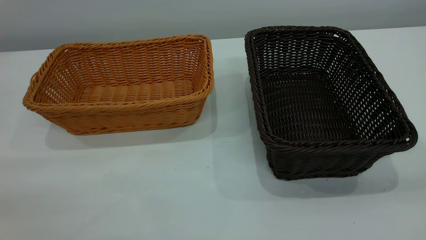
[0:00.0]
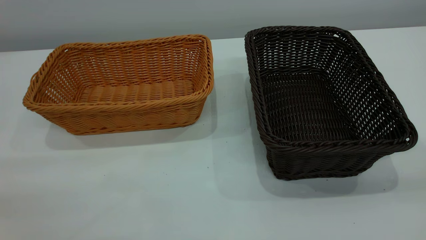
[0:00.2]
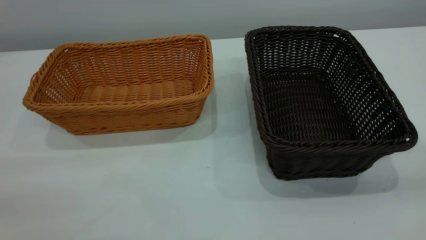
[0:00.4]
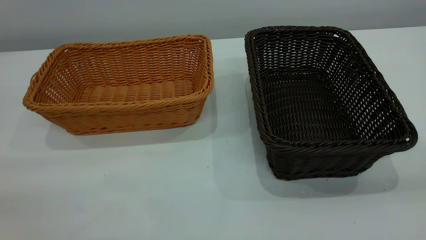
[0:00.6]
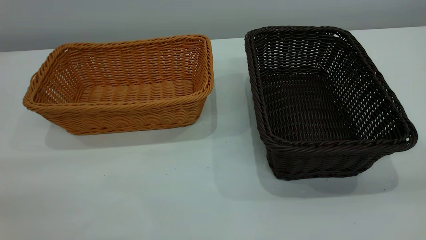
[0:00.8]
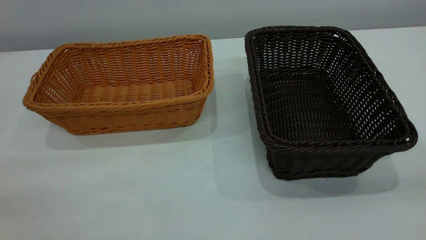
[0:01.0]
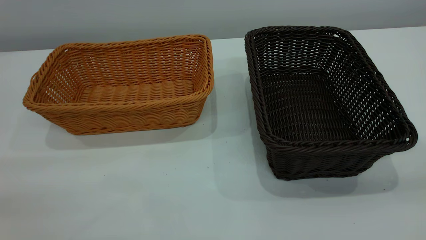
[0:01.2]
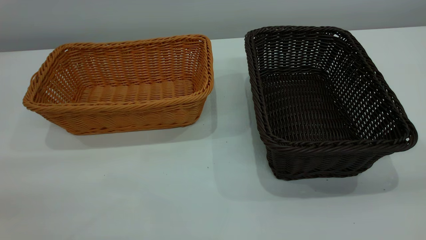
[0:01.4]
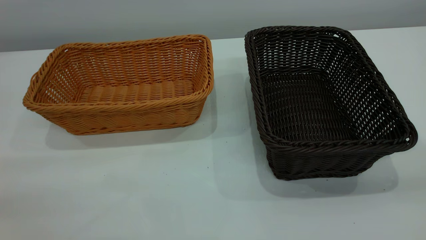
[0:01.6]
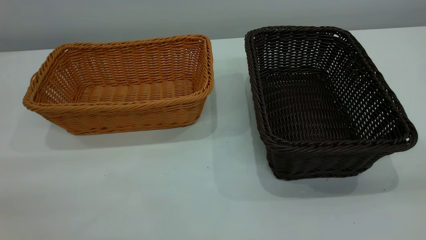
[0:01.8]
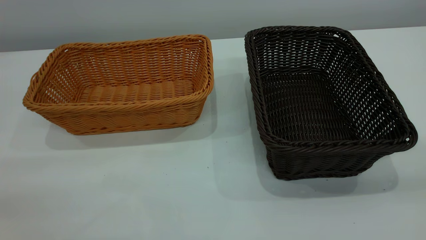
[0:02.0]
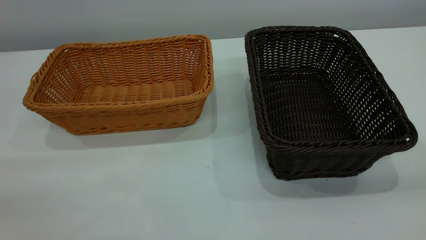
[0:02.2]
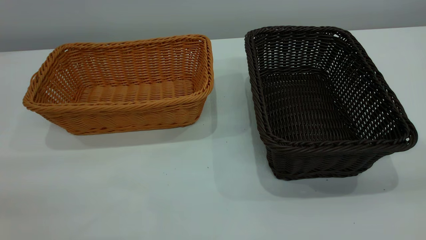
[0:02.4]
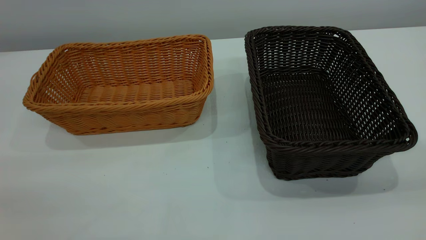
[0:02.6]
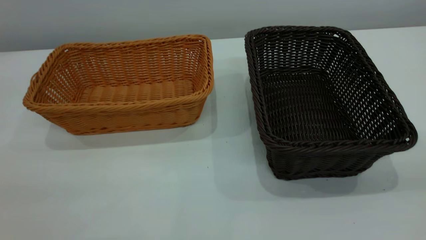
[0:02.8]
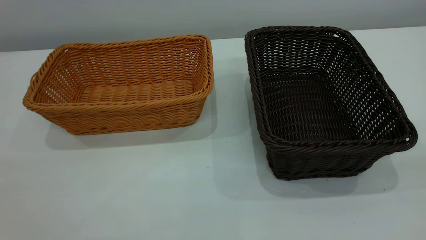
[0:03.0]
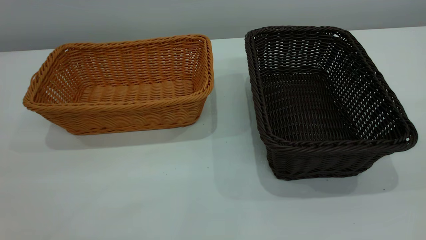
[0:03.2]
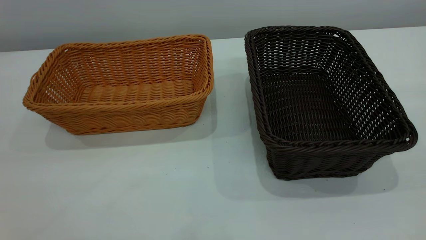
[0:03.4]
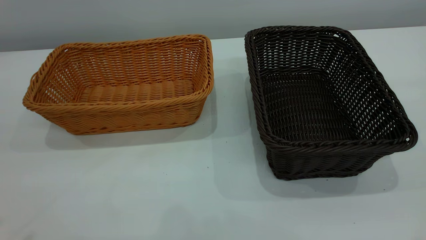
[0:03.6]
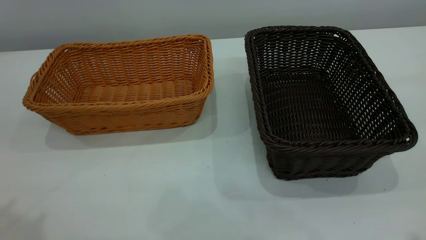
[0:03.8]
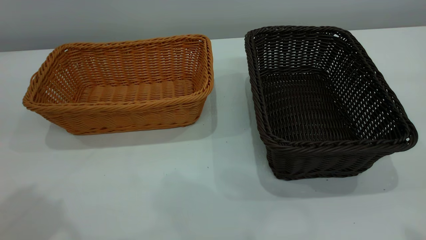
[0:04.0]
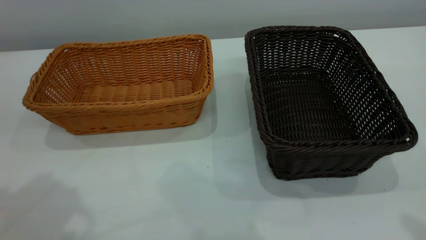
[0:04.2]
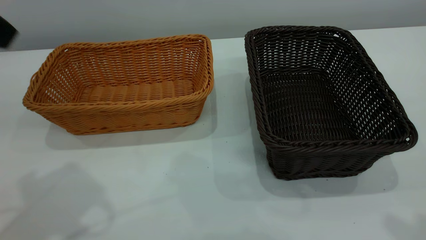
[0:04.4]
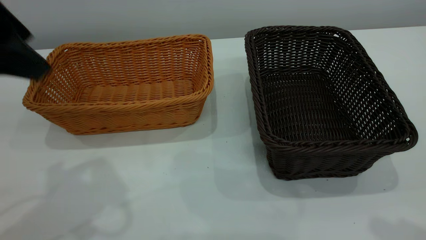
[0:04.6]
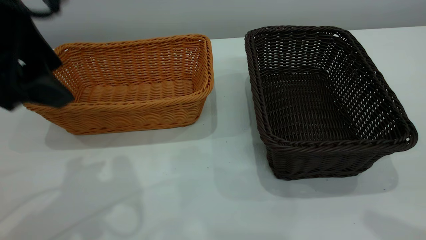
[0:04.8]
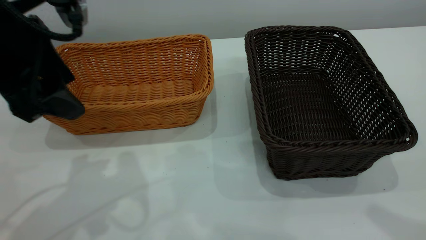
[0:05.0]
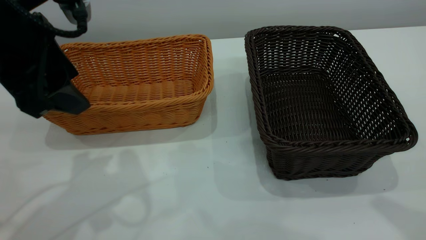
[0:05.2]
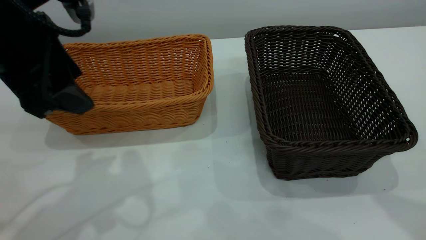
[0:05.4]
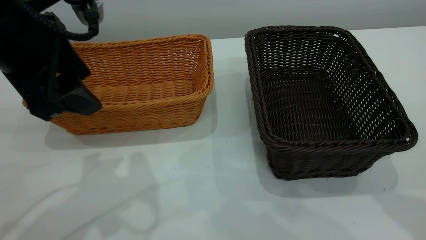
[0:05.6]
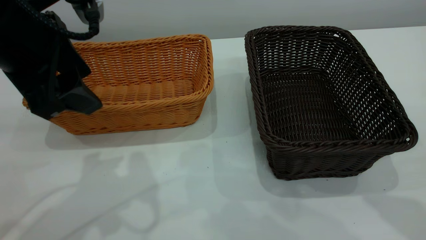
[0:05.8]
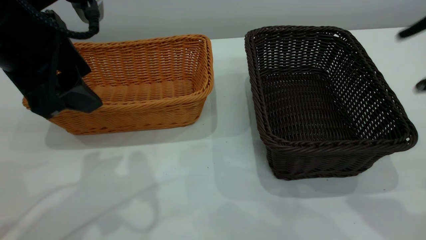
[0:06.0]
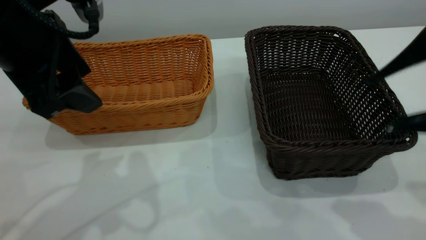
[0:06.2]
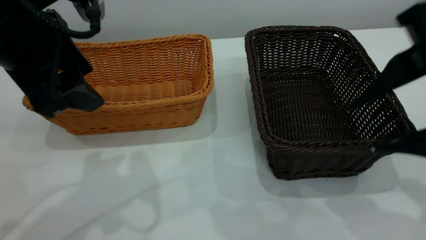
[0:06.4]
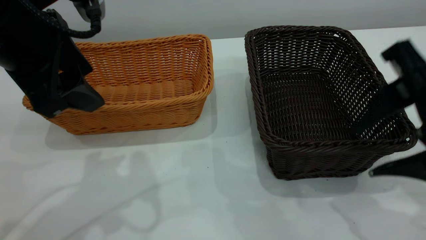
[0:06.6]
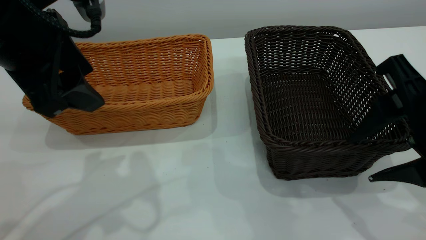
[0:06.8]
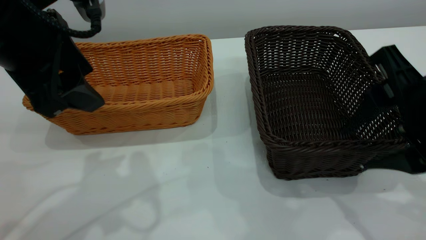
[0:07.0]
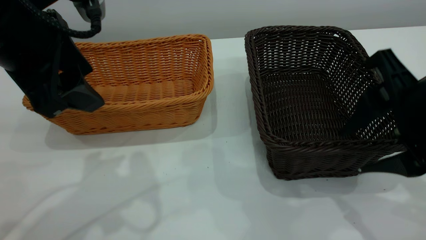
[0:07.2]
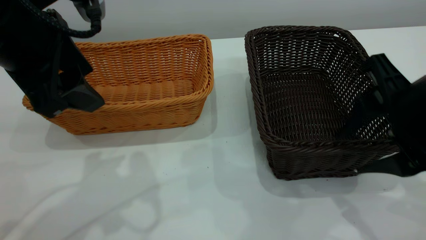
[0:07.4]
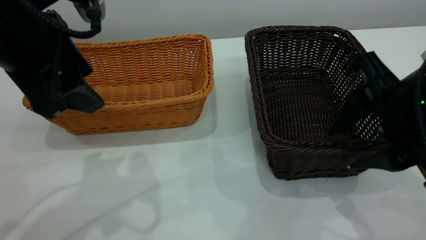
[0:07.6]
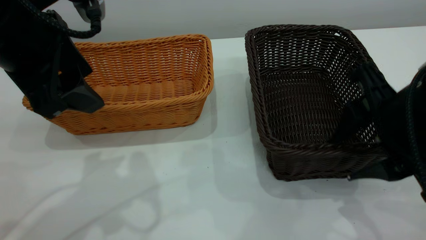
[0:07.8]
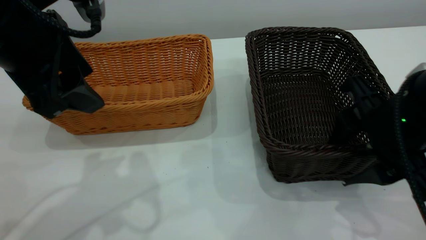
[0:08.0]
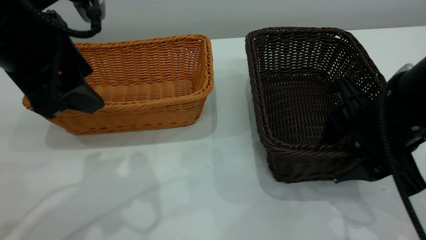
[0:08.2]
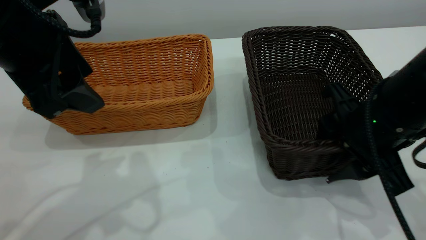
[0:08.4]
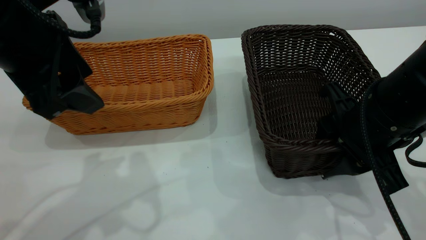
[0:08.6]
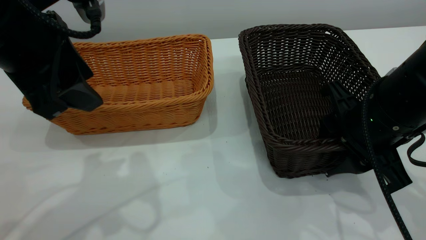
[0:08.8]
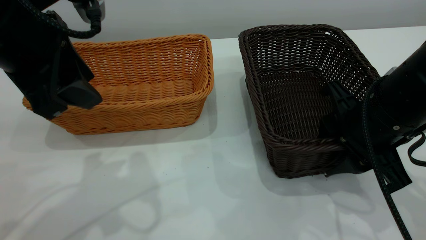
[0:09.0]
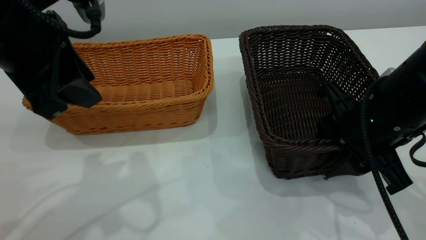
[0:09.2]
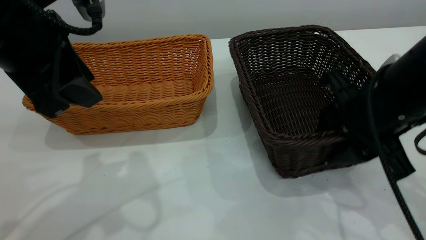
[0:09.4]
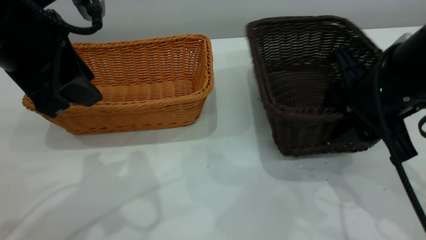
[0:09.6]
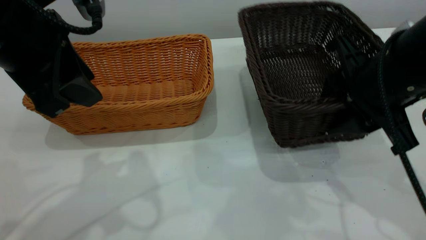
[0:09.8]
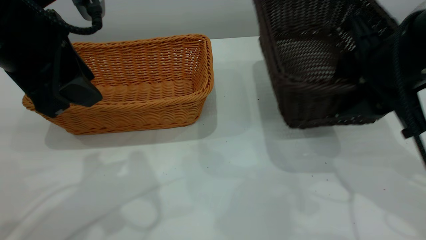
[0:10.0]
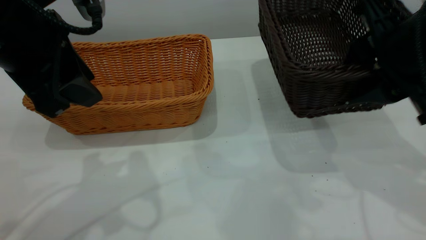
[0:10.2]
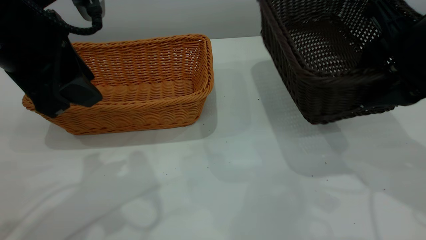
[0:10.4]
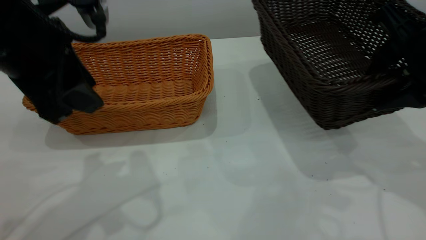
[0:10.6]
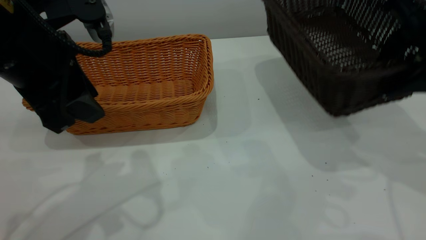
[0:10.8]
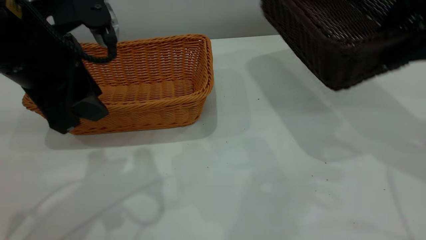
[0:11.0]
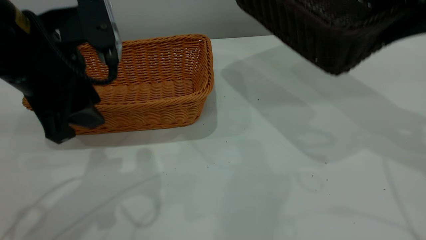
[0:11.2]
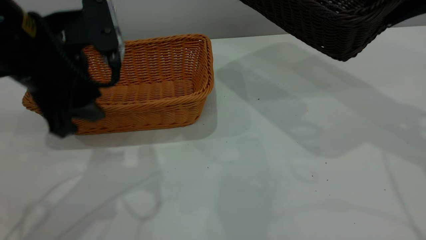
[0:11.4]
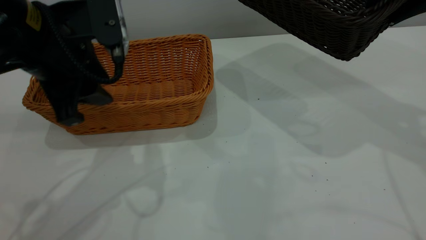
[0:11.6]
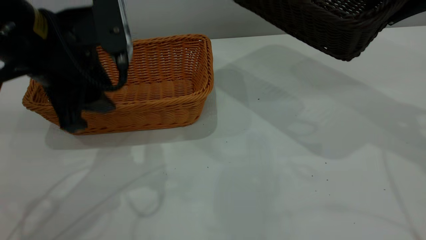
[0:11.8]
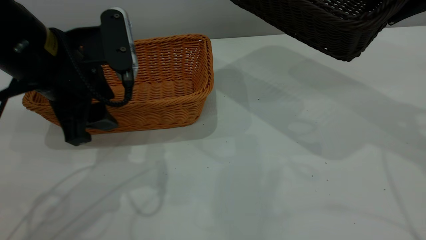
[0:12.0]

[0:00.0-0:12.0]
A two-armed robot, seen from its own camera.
Task of the whole recording: the left gripper grasp the brown basket and place it in the center of the table, the right gripper grasp the black basket and place it inside the brown one.
Step, 0.0 to 10.6 s: Pick up the light basket with the right gripper.
0.0 to 1.6 s: The two grippers keep their place.
4.4 to 6.0 s: The left gripper travels downward and to the right by some 10 cm.
6.0 to 7.6 s: The right gripper is displaced downward and forward by roughly 10 cm.
7.6 to 9.0 s: The right gripper shifts by some 5 cm.
9.0 to 10.4 s: The right gripper travels upward by some 10 cm.
10.4 to 12.0 s: The right gripper heads upward and forward, covering roughly 10 cm, while the left gripper goes approximately 5 cm downward.

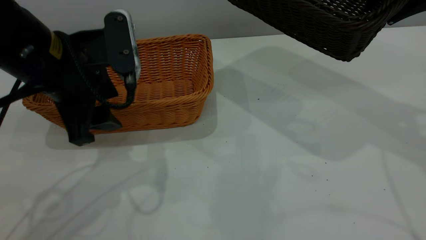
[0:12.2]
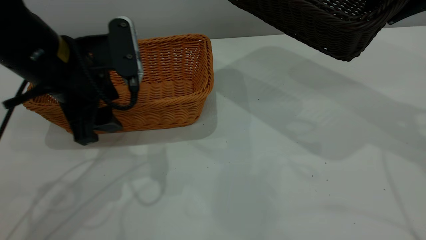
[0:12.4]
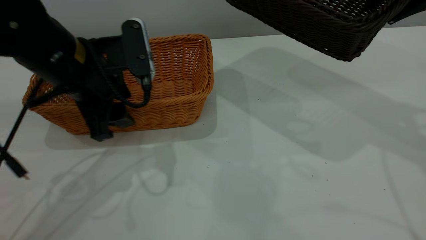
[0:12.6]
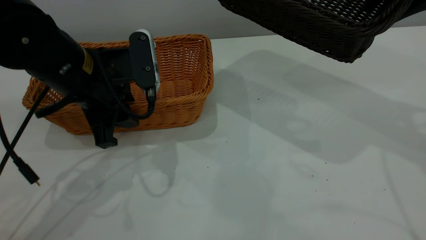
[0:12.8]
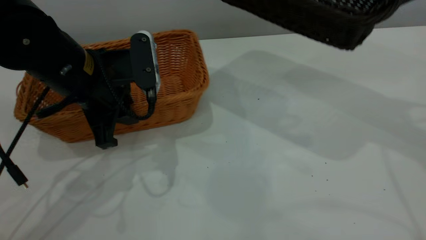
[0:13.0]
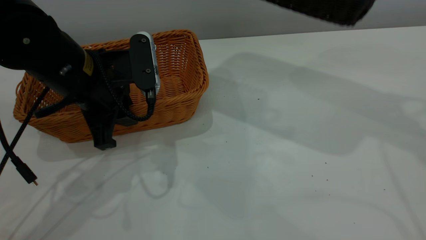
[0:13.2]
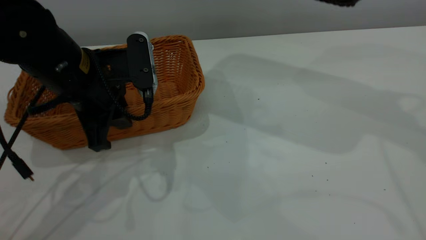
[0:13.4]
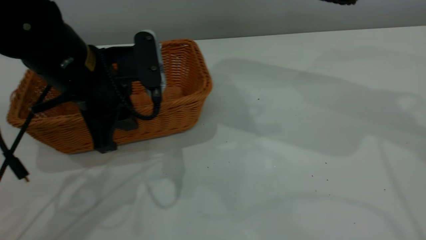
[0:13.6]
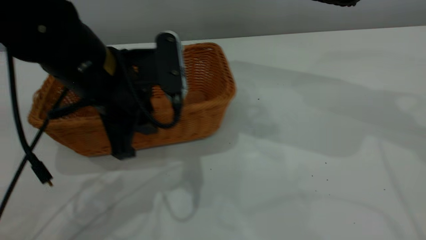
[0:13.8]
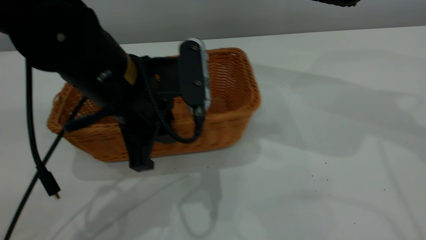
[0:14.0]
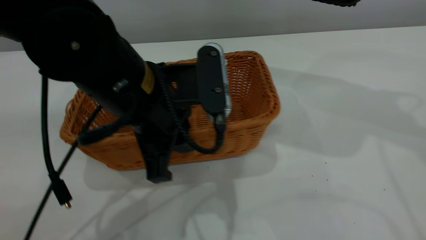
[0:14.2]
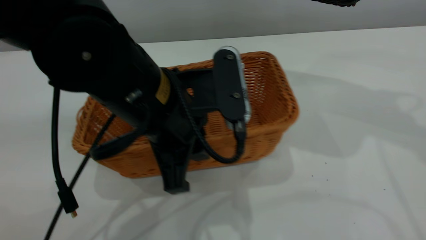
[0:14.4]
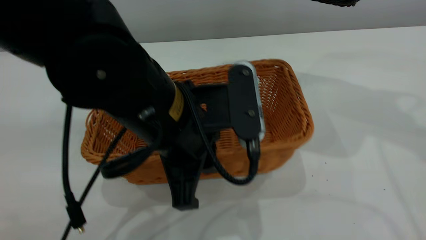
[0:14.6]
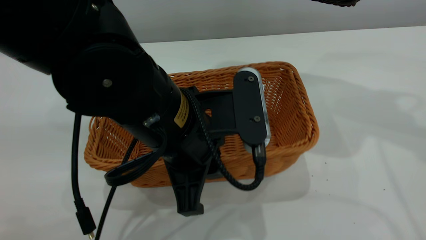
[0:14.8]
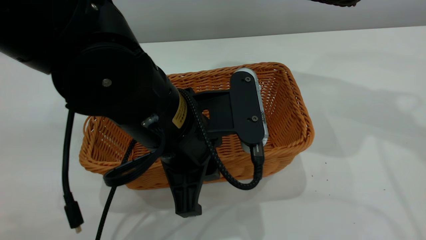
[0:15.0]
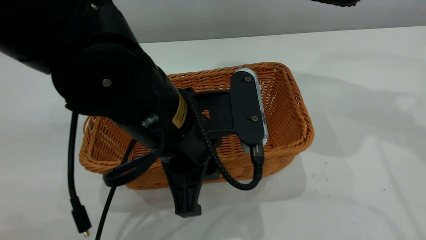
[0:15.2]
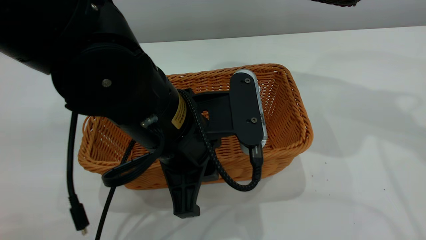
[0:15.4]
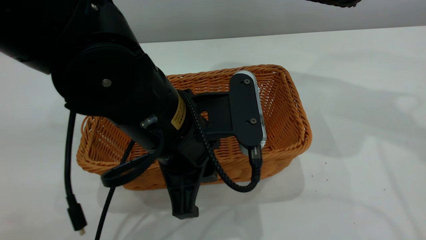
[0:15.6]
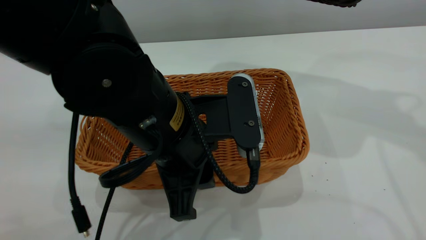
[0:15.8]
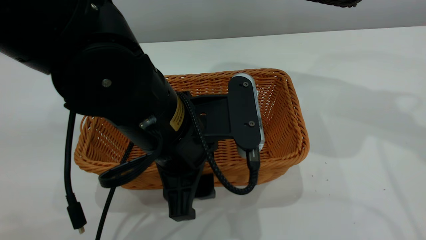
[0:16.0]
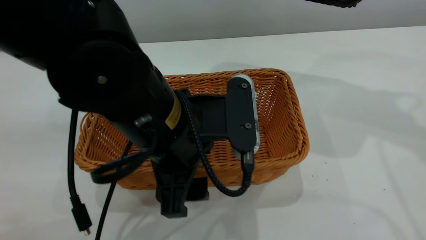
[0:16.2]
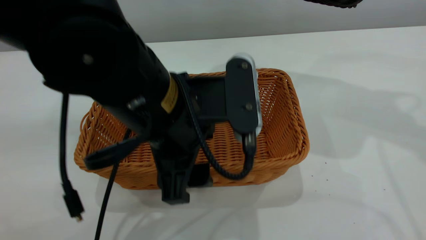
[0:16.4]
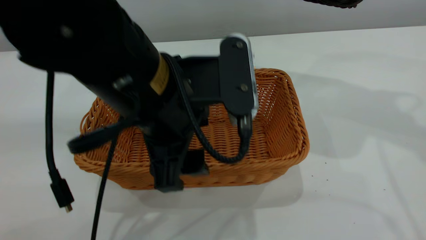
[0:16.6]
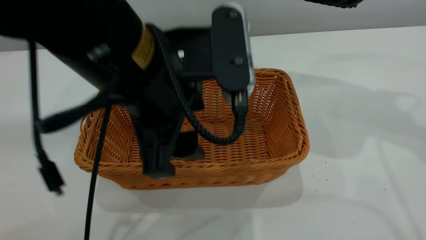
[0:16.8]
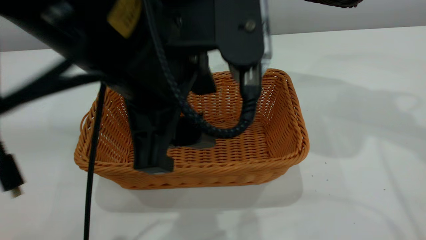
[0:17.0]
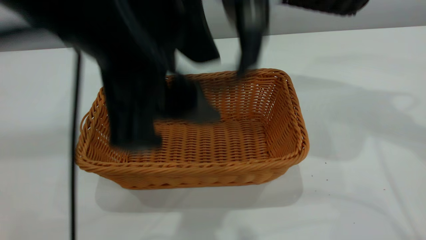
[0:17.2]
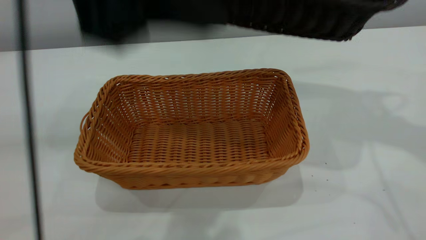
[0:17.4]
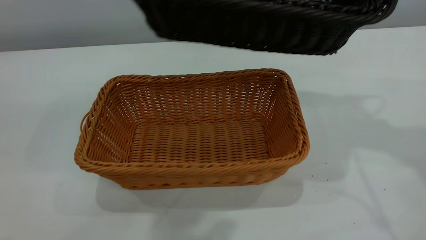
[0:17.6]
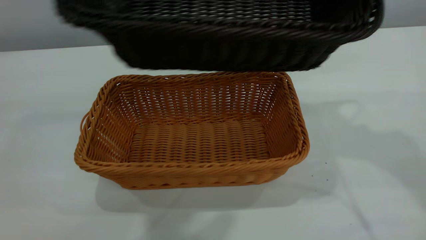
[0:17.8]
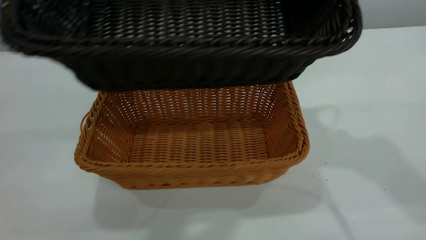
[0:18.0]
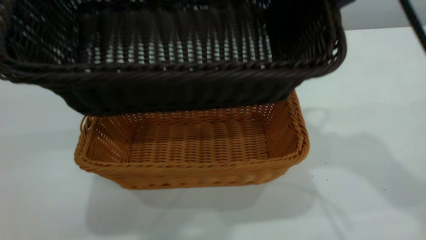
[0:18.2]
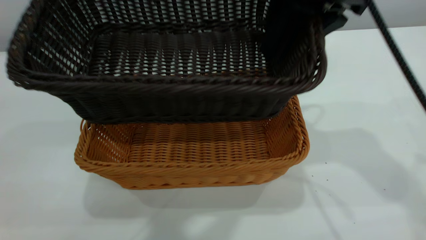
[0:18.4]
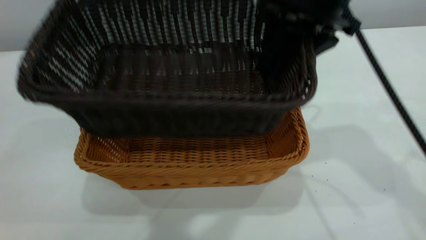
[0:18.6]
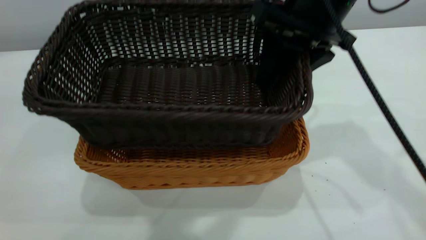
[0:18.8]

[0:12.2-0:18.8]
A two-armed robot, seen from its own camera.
Task of the whole recording: the left gripper grasp the brown basket and place it in the center of the table, the right gripper grasp the black basket and place it inside the brown one.
Step, 12.2 to 16.8 s: Place the light-colored basket in the center.
12.2 to 13.8 s: The right gripper travels upward by some 5 cm. Meanwhile the left gripper heads to the right, covering about 5 cm, and closes its fingers.
13.8 to 15.4 s: The left gripper travels to the right and backward by about 10 cm.
15.4 to 17.2 s: The left gripper shifts about 15 cm upward, and opens up.
17.2 to 18.8 s: The right gripper goes approximately 15 cm to the left and downward, while the left gripper shifts approximately 15 cm upward.
